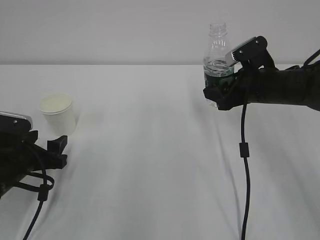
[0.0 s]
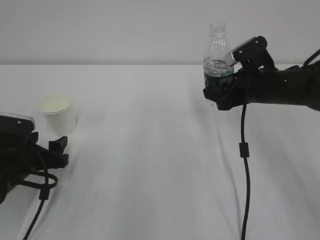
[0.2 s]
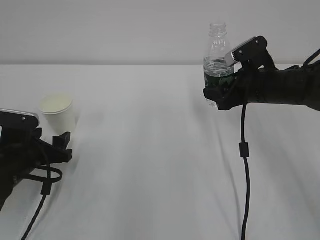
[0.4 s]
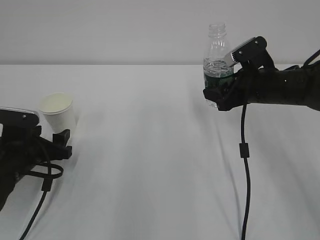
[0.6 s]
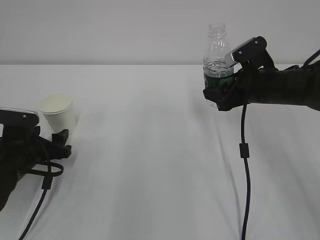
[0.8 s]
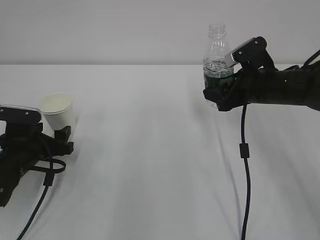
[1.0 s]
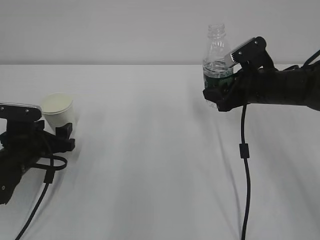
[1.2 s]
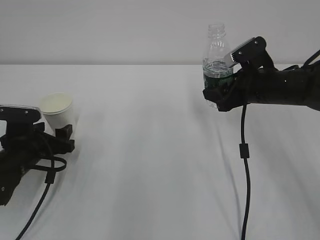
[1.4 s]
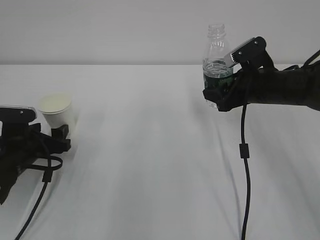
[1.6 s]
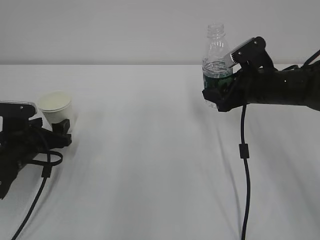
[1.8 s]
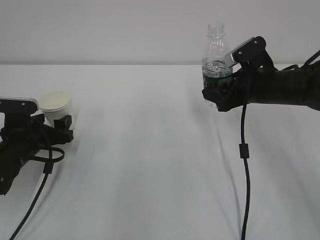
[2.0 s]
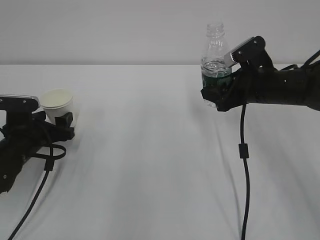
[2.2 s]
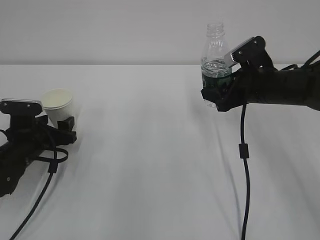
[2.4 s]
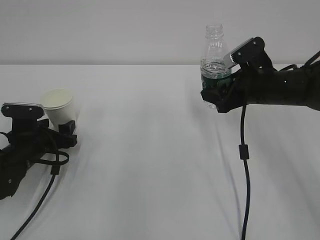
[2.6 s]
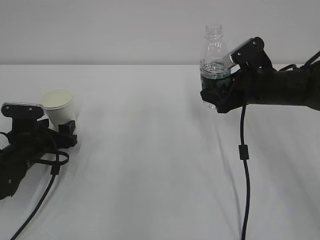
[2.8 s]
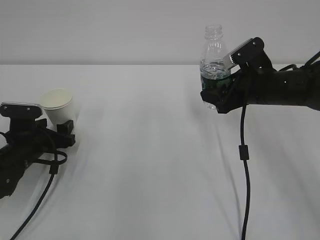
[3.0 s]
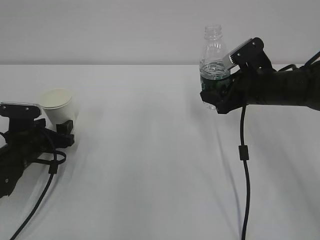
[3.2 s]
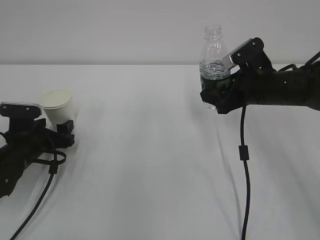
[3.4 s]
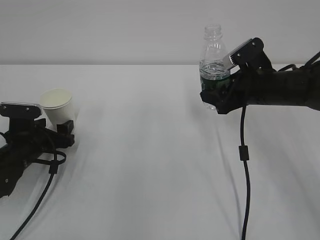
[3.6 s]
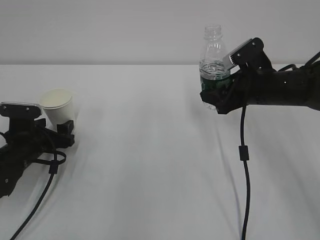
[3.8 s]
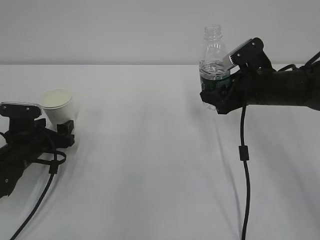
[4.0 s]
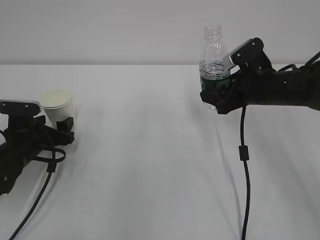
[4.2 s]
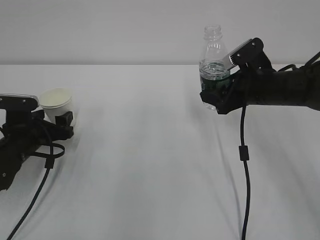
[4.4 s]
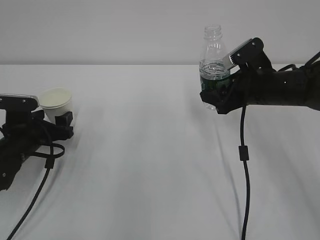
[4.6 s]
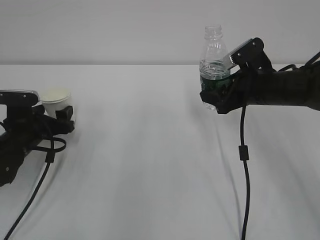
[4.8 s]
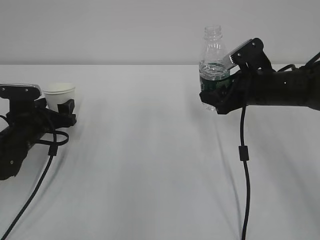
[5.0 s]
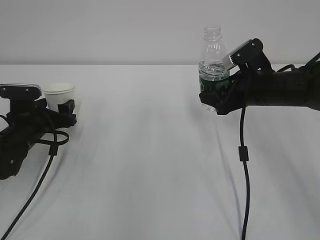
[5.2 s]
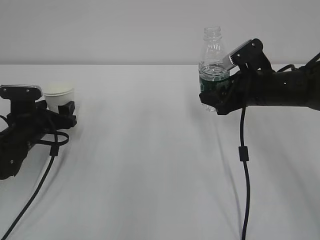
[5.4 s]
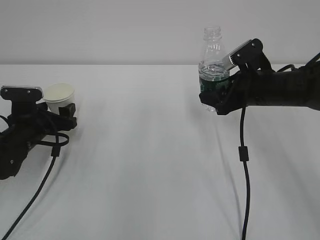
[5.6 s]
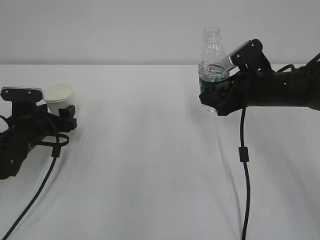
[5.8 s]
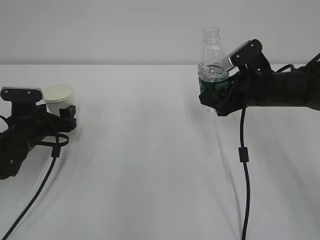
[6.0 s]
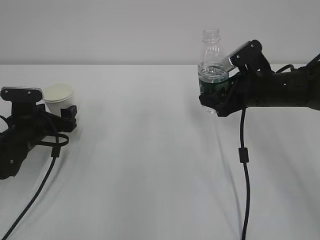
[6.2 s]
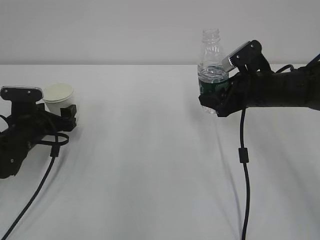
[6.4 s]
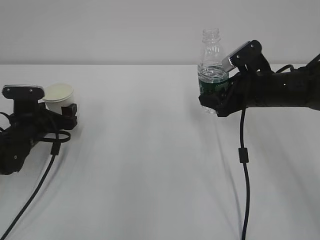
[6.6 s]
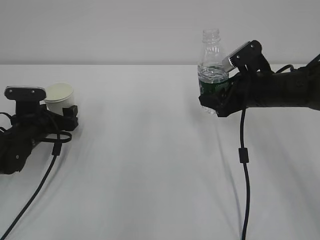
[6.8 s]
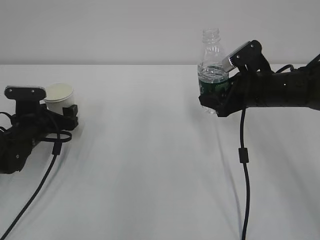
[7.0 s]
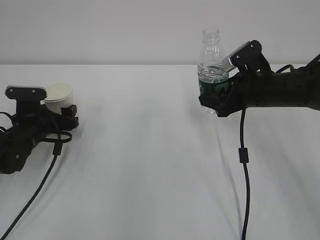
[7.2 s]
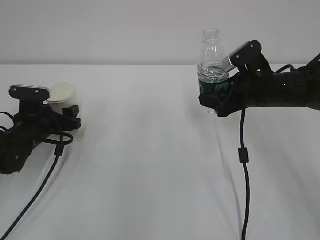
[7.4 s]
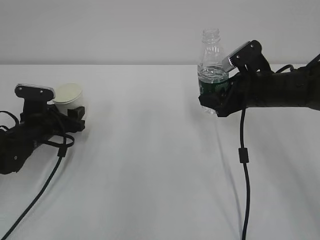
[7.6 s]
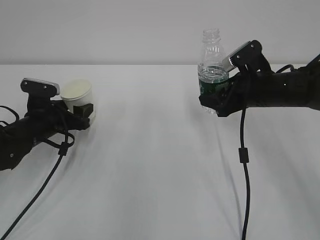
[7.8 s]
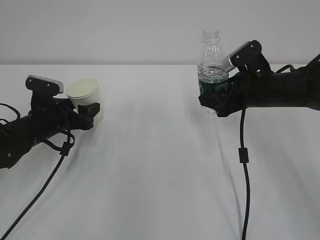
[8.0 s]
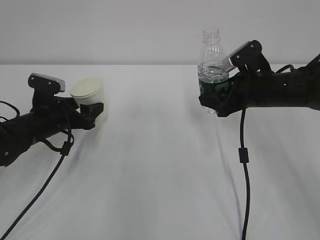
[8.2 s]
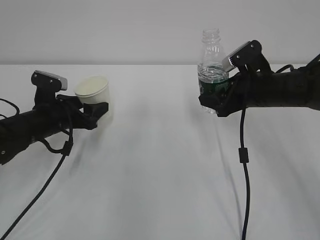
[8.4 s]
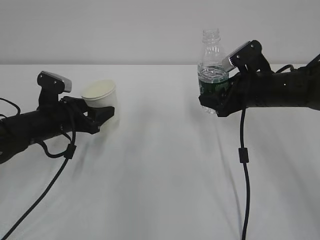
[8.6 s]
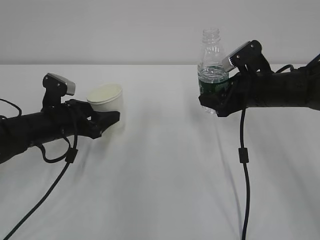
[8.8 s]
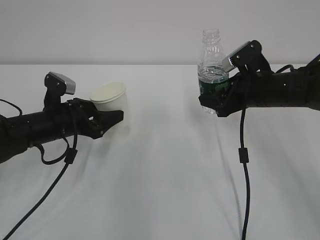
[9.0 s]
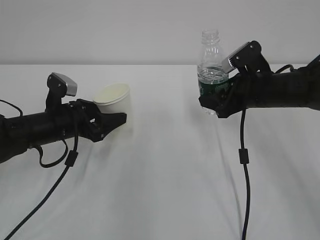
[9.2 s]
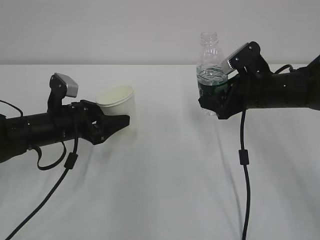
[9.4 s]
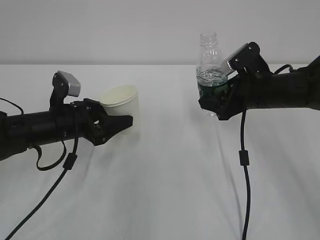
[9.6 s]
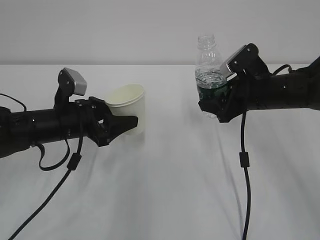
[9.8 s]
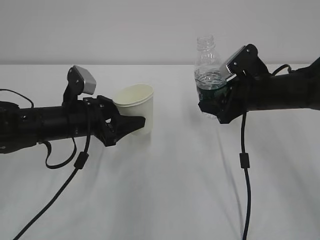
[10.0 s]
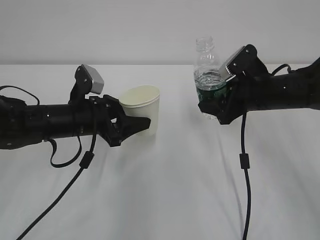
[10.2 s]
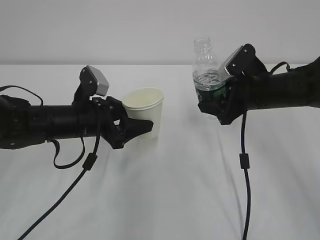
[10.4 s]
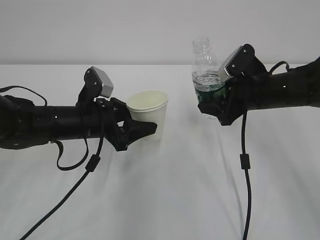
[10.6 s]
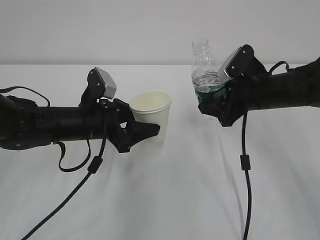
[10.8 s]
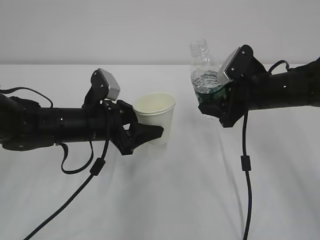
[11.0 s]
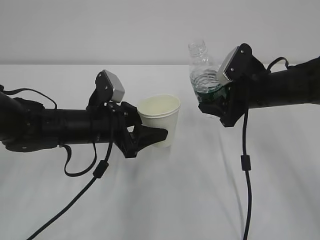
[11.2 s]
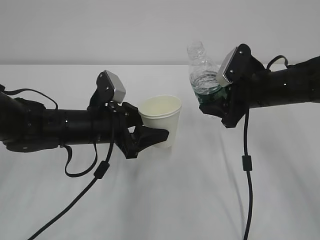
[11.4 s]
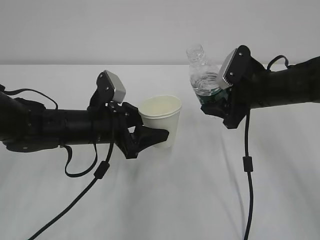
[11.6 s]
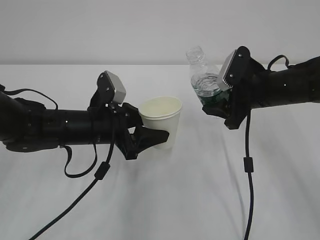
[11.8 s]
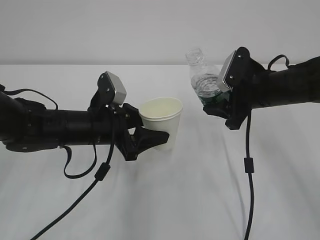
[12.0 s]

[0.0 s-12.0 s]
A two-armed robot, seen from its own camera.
0.0 to 1.6 s: The left gripper ends up about 5 cm from where it was.
1.6 to 6.0 s: The grippers make only small movements.
6.0 to 7.6 s: The left gripper closes its fingers.
7.6 to 9.0 s: The left gripper moves to the right, approximately 5 cm.
9.0 to 10.4 s: The left gripper is displaced to the right by approximately 5 cm.
10.4 to 12.0 s: The grippers make only small movements.

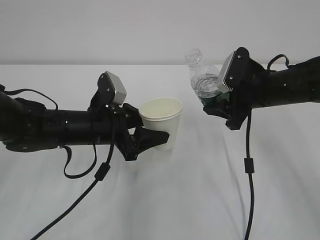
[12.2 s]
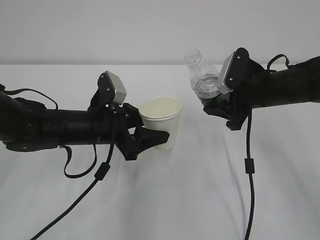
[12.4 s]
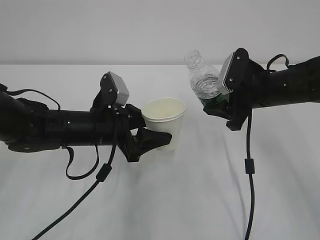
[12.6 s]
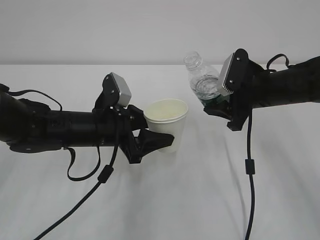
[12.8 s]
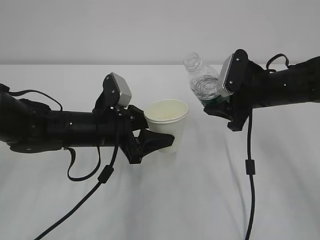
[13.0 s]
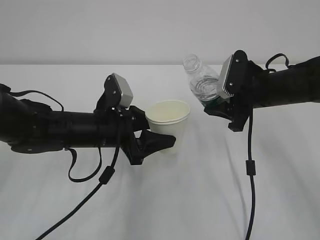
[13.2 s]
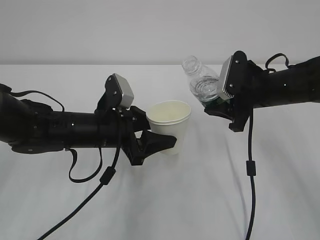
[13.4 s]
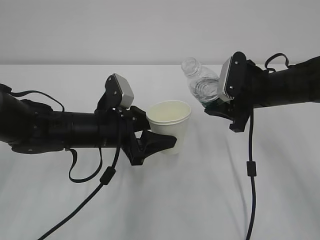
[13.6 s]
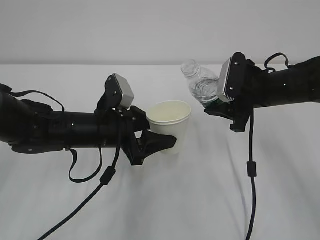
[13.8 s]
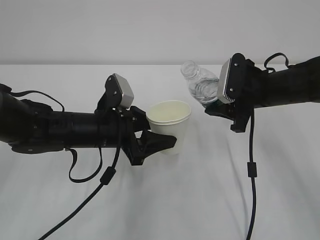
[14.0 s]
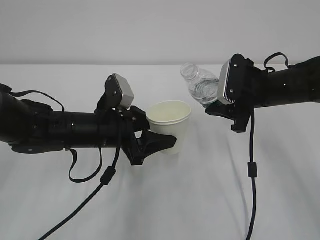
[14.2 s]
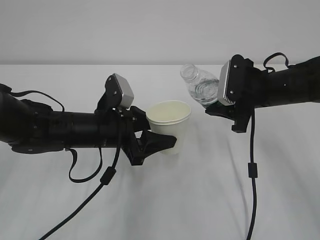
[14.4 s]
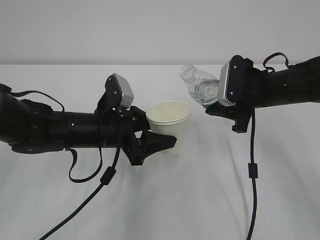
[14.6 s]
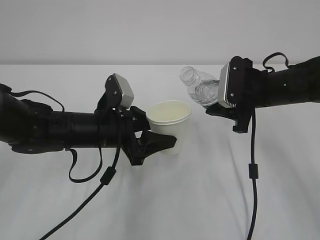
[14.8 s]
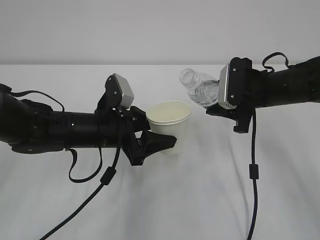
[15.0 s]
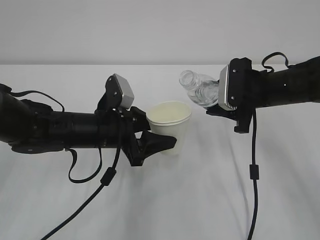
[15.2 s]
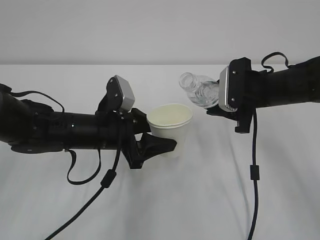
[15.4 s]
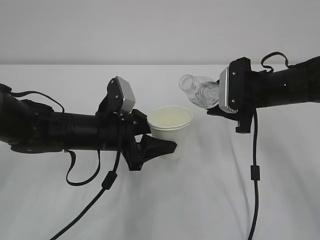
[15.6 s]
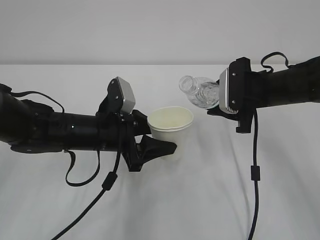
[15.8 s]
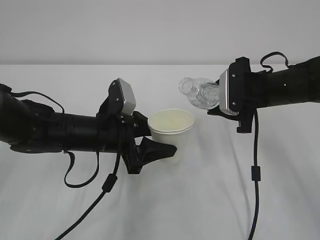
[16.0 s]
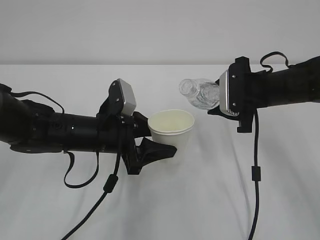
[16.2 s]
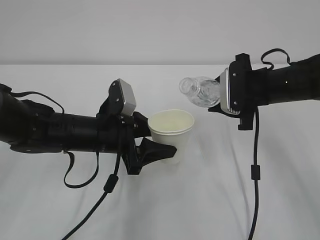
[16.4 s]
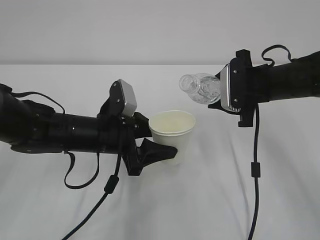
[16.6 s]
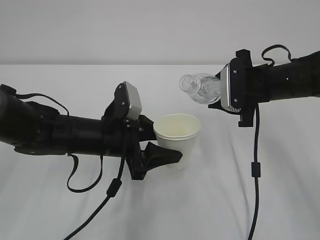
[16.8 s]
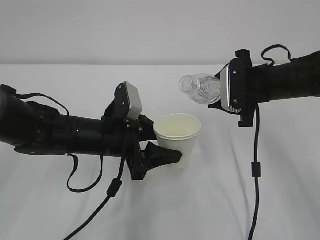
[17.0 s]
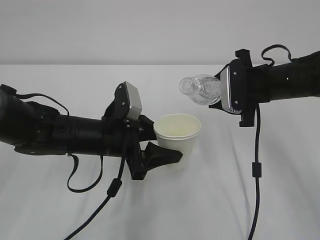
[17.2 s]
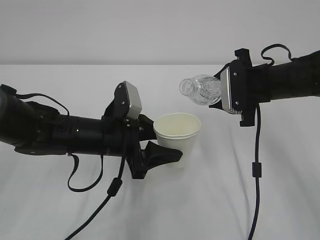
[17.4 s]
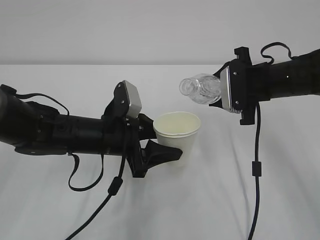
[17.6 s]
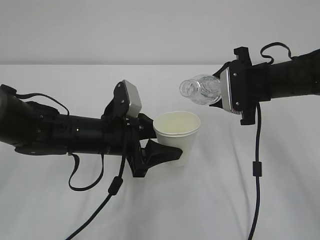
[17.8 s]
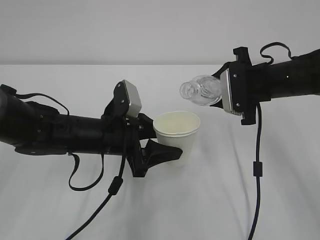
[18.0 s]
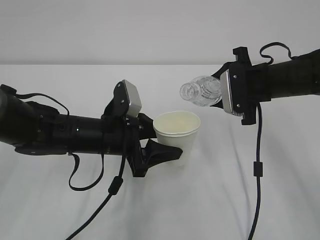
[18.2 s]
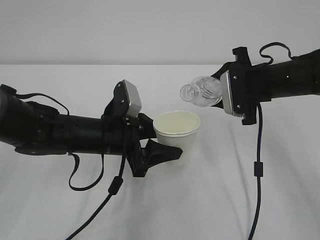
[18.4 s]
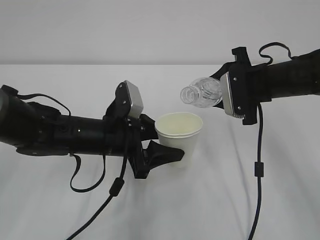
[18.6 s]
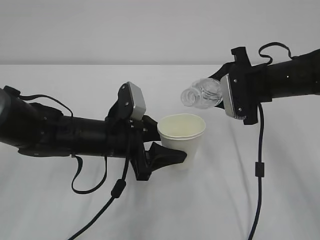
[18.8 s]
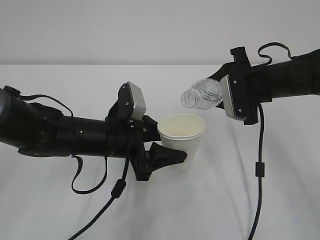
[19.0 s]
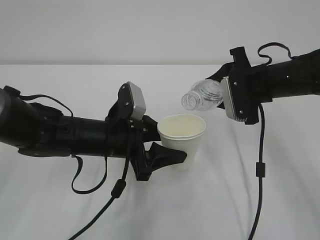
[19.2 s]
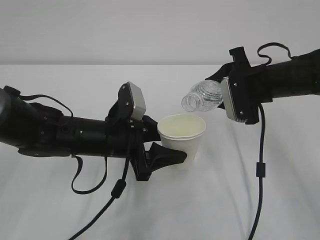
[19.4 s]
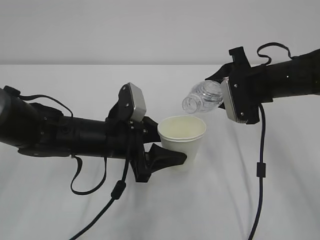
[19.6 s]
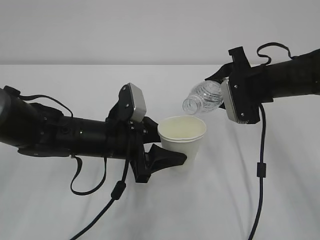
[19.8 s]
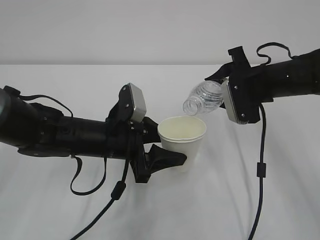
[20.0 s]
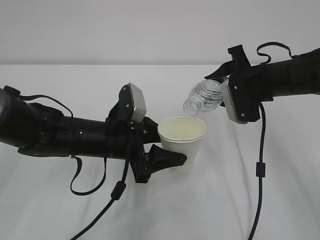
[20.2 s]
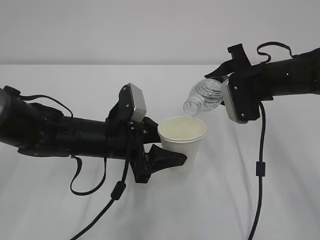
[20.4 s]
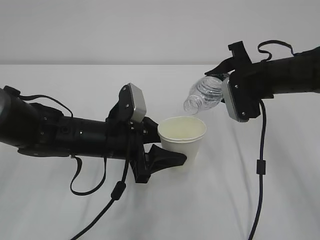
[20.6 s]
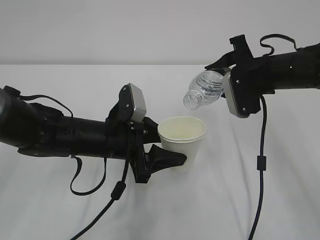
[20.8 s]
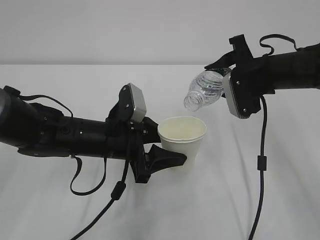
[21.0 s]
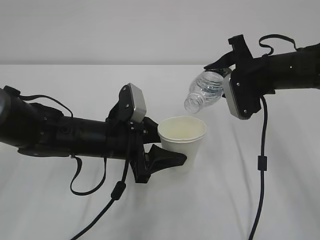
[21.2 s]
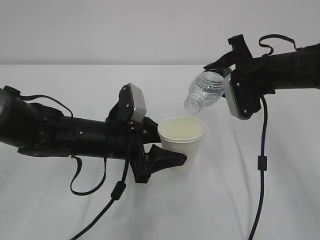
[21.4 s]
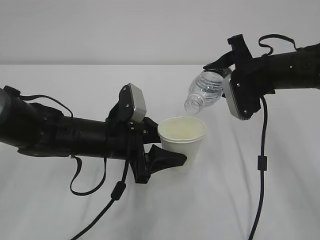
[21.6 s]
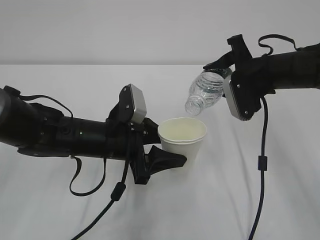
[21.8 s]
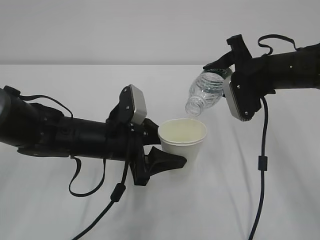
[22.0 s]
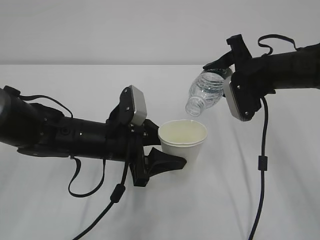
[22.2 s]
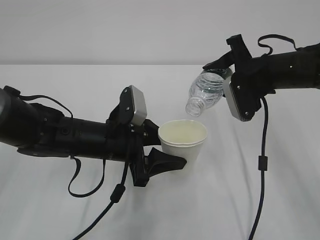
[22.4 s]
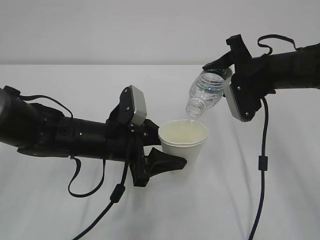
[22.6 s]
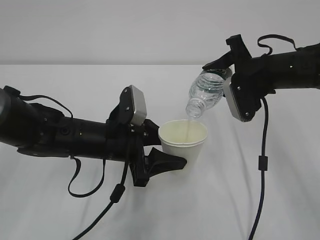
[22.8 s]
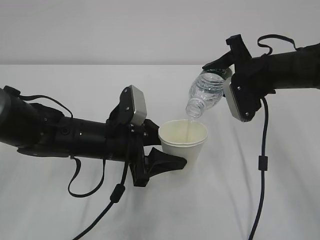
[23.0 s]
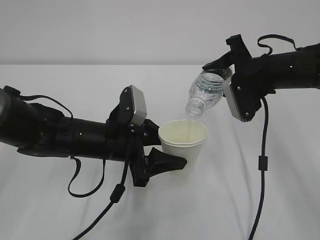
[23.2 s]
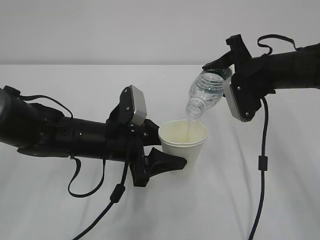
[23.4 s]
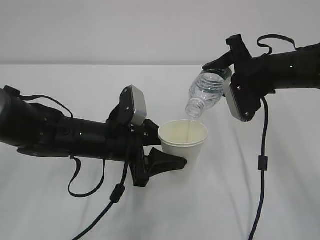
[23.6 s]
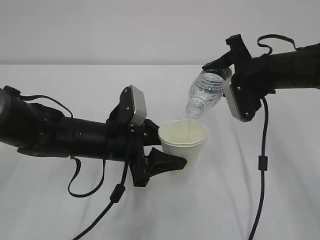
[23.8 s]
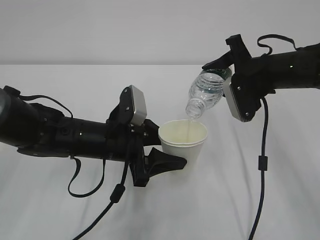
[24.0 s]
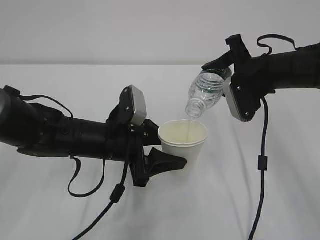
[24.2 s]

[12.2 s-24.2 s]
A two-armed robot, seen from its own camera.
12.2 to 13.8 s: The grippers move only a little.
13.8 to 16.6 s: The grippers make only small movements.
16.6 to 19.8 s: The grippers make only small movements.
19.8 to 21.2 s: The grippers move only a little.
21.2 to 22.6 s: Neither gripper changes place.
22.6 to 24.2 s: Neither gripper changes place.
